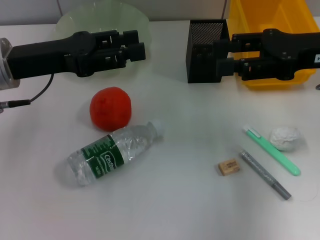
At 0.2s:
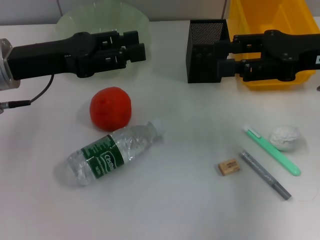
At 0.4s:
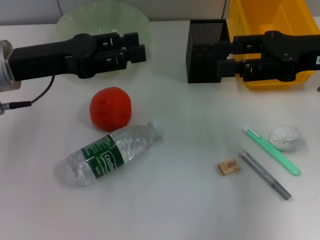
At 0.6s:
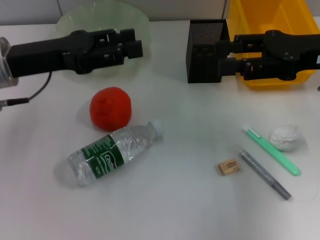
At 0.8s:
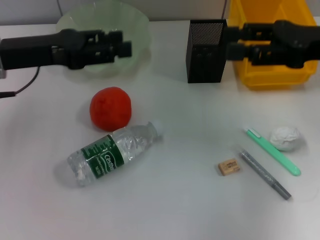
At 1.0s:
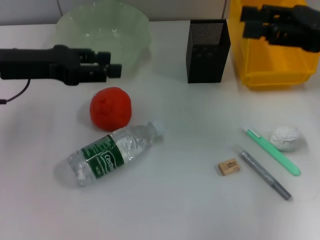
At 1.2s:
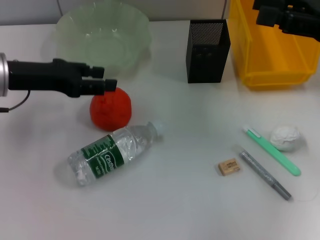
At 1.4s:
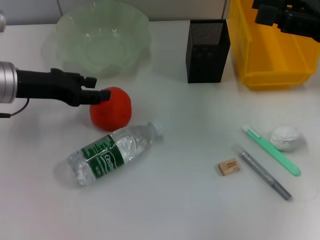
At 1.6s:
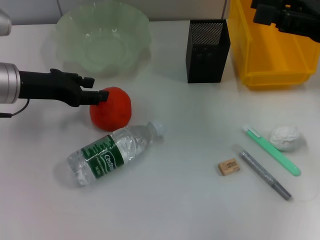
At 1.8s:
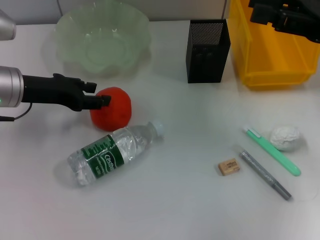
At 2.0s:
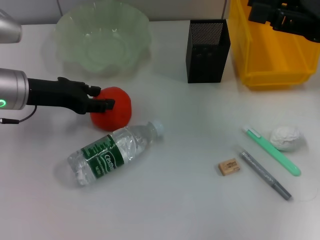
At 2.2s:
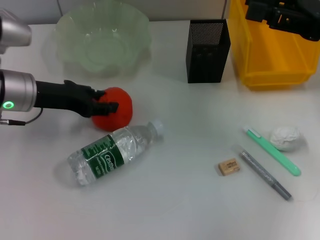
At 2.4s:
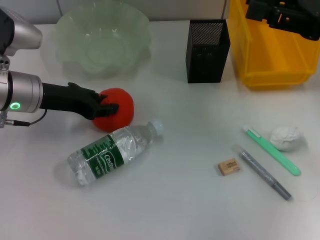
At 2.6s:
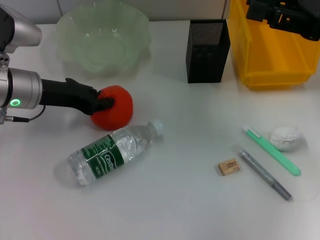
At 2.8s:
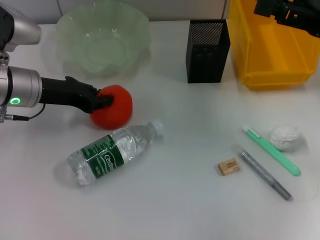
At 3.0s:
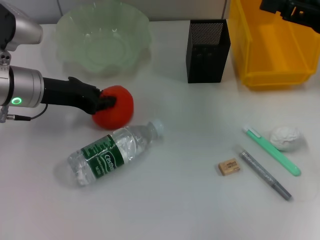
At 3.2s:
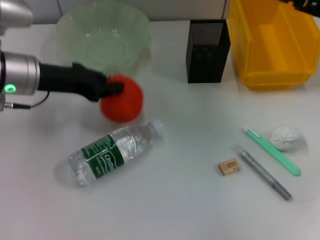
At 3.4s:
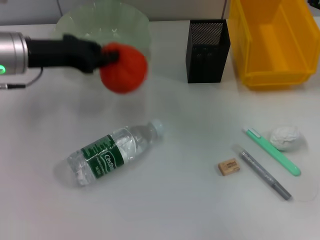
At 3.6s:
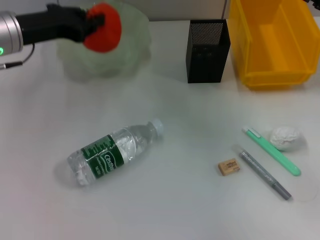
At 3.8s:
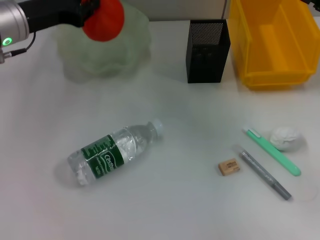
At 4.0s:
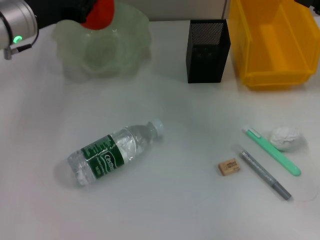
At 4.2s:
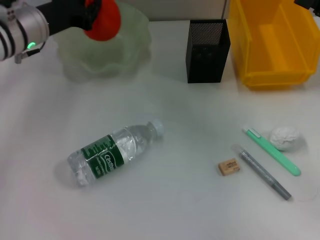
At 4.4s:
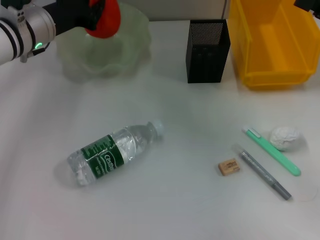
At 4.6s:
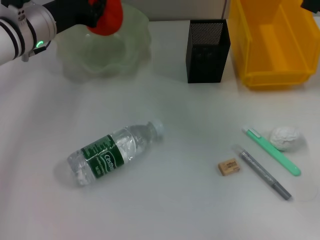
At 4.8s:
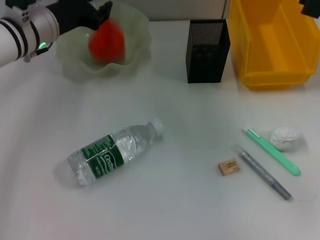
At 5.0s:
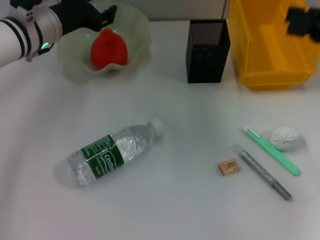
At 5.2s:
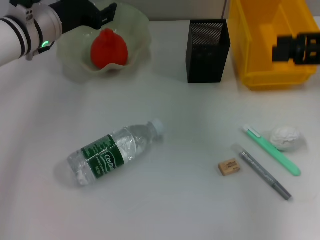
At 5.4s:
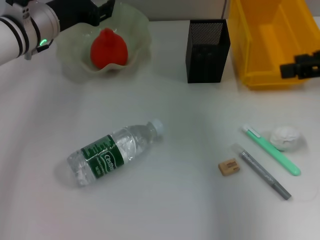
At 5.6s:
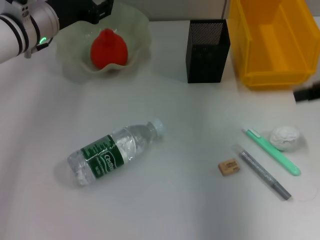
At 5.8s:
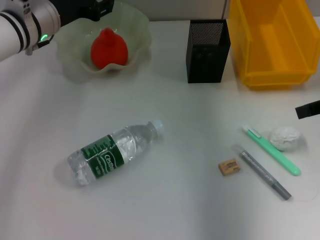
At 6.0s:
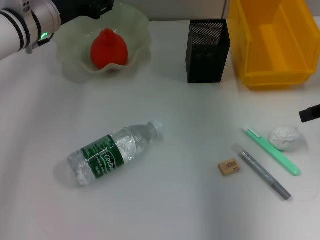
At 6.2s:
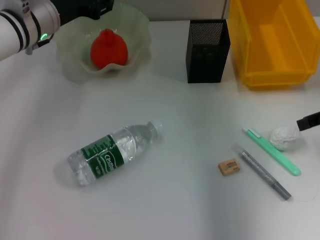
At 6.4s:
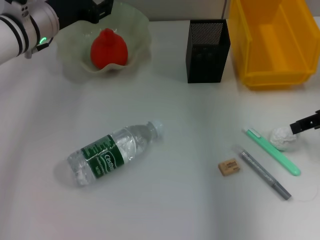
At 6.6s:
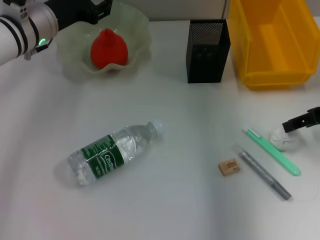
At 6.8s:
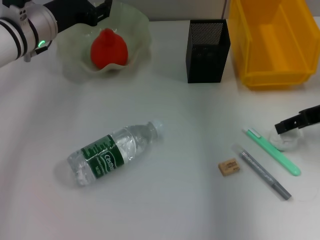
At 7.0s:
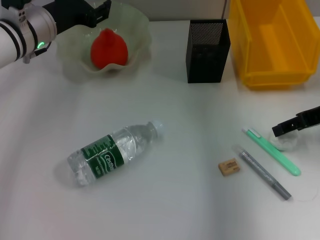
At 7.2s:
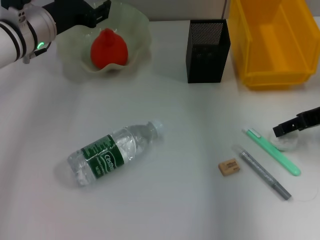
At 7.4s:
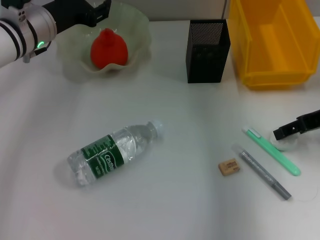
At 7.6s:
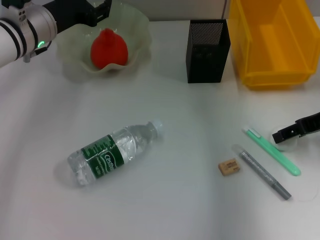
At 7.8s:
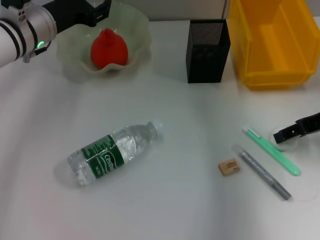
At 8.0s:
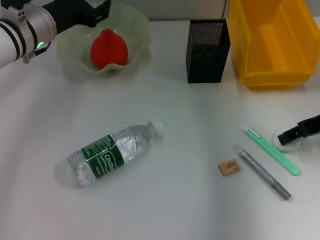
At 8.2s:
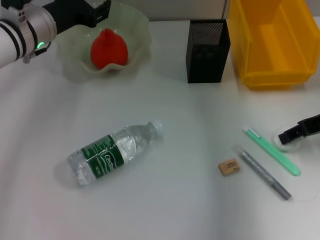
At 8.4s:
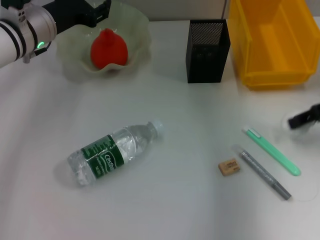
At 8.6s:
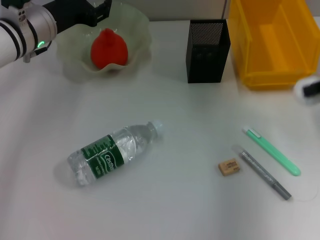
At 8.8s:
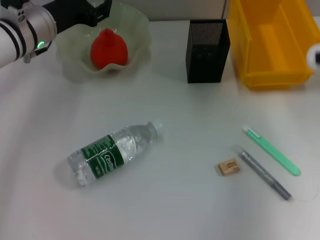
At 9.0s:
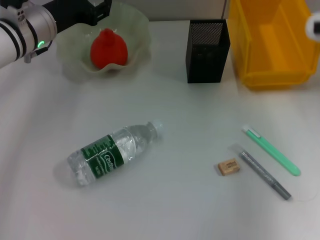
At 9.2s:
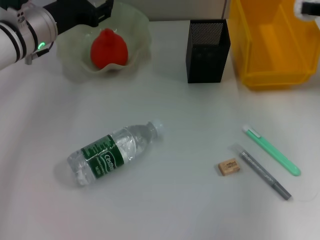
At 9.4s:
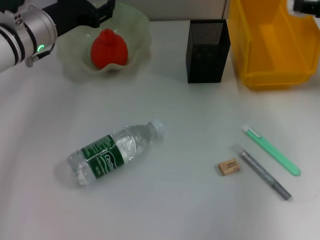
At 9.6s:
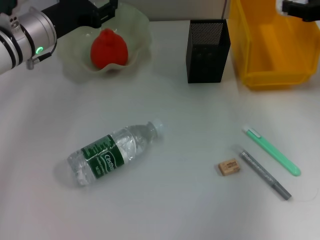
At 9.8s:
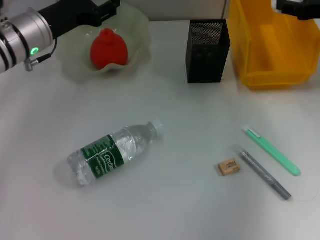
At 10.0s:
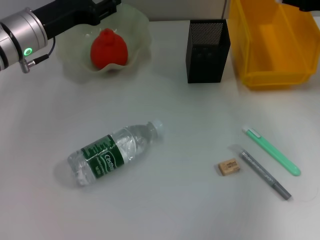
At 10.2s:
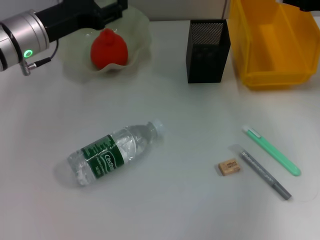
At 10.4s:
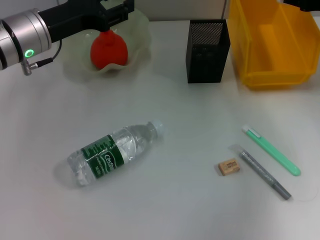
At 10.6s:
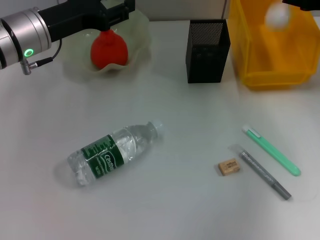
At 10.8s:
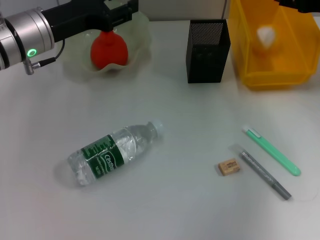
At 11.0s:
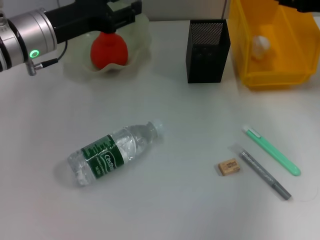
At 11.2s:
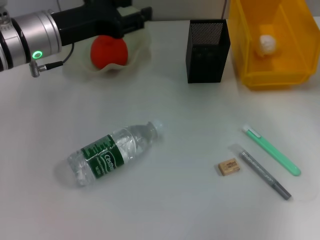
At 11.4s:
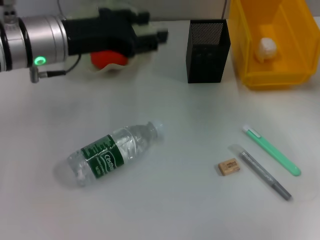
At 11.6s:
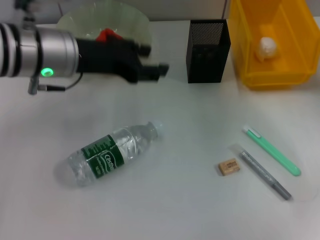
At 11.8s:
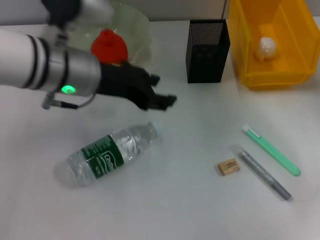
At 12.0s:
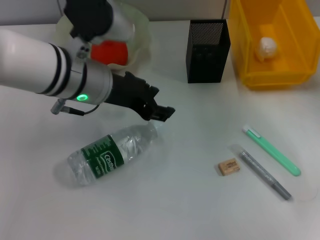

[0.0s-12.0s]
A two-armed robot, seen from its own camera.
Step, 0.0s to 2.6s: Grab the orange with the left hand.
Step, 2.8s to 5.0s: Place the orange into the fruit bowl with the left hand.
Step, 5.2s to 7.8s: Grab the paper ball with the right hand.
Step, 8.0s to 11.2s: Place the paper ball into the trash can with the right hand.
1.6s to 3.0s: The left gripper closes up.
3.0s to 4.4s: The left gripper heads forward, covering some 5 cm.
4.4s to 6.0s: The left gripper opens its fingers.
6.0s to 7.6s: The right gripper moves downward, about 5 cm.
7.6s to 9.0s: The right gripper heads upward and to the right, covering approximately 10 cm.
9.0s to 10.4s: The left gripper shifts by approximately 5 cm. Meanwhile the right gripper changes place by roughly 5 cm.
10.4s to 12.0s: The right gripper ends up about 5 cm from where it was. The left gripper goes approximately 10 cm to the right.

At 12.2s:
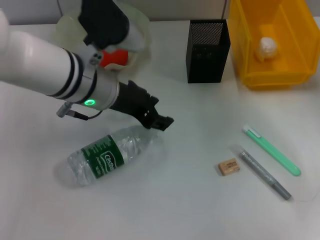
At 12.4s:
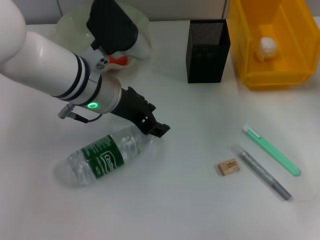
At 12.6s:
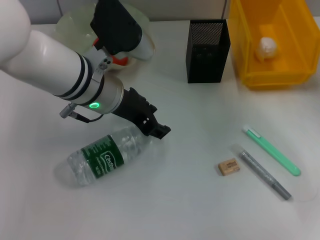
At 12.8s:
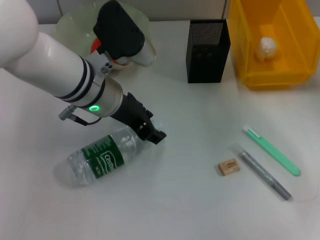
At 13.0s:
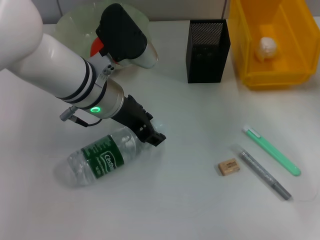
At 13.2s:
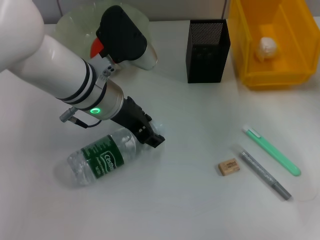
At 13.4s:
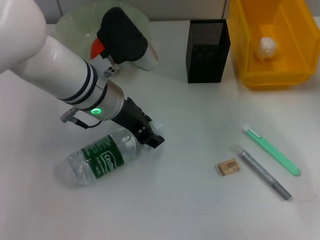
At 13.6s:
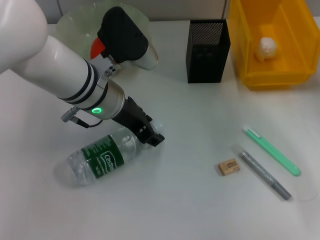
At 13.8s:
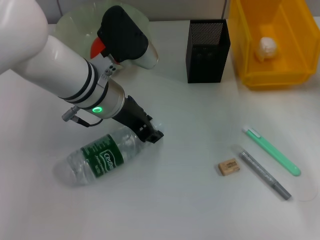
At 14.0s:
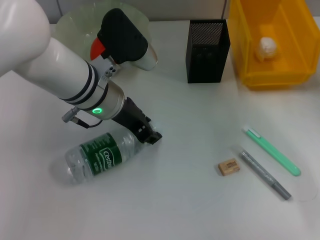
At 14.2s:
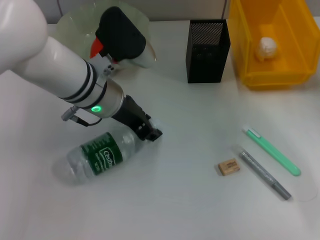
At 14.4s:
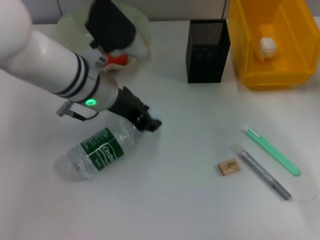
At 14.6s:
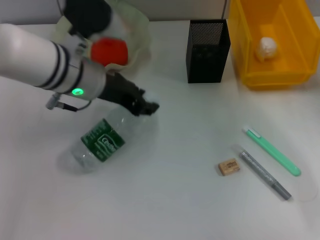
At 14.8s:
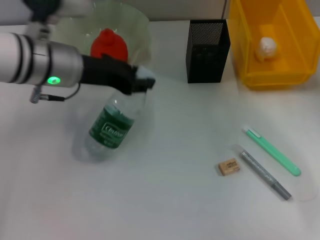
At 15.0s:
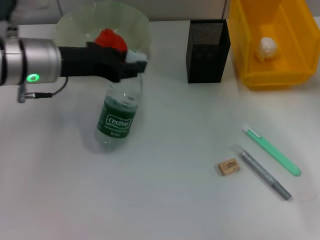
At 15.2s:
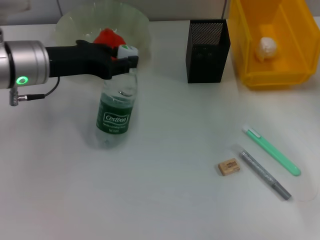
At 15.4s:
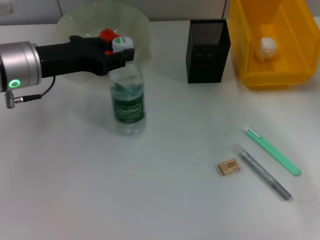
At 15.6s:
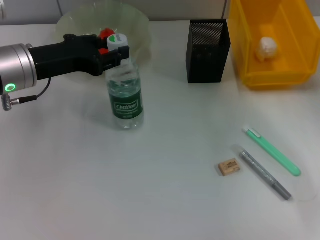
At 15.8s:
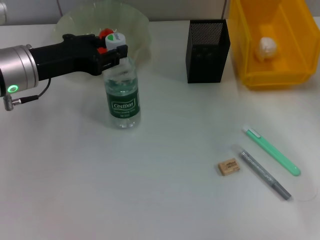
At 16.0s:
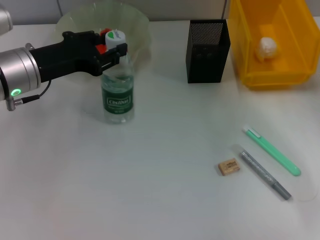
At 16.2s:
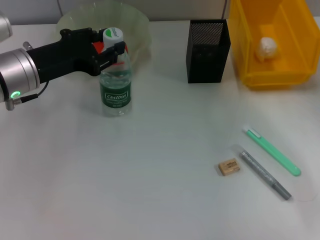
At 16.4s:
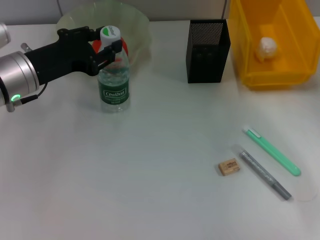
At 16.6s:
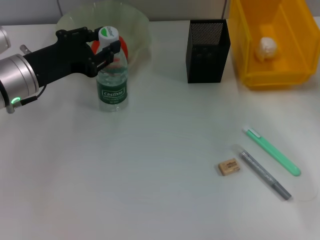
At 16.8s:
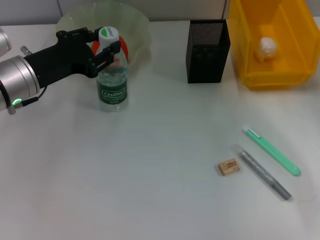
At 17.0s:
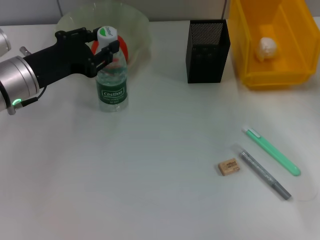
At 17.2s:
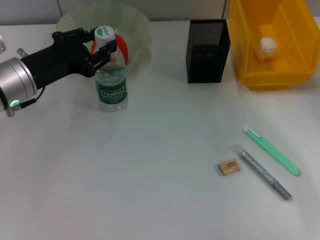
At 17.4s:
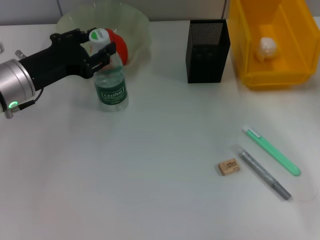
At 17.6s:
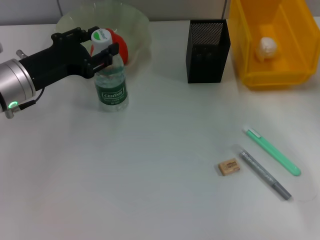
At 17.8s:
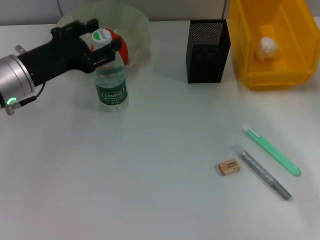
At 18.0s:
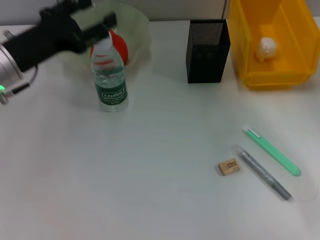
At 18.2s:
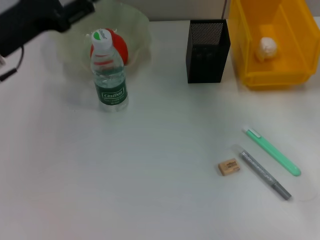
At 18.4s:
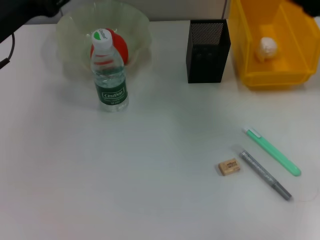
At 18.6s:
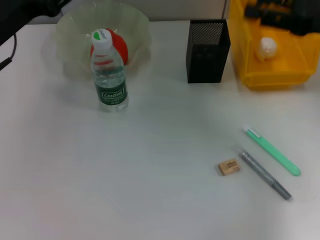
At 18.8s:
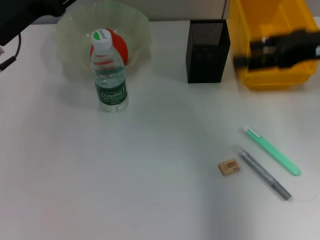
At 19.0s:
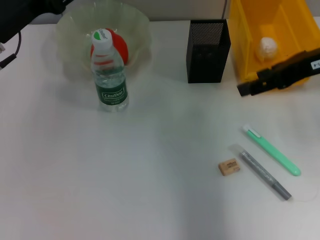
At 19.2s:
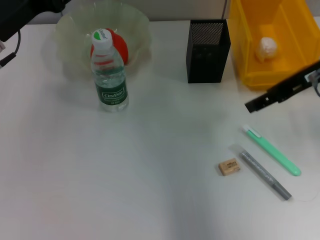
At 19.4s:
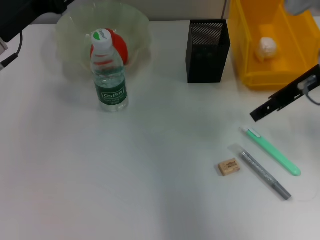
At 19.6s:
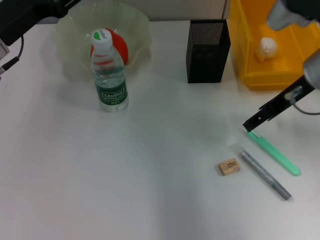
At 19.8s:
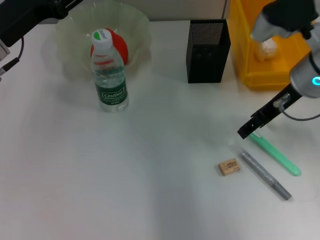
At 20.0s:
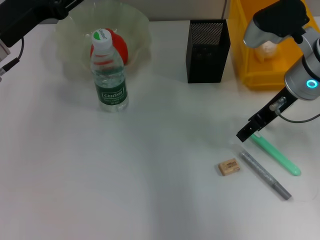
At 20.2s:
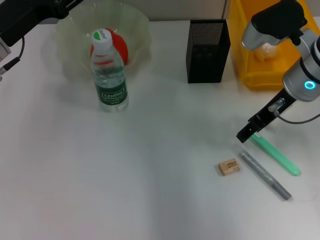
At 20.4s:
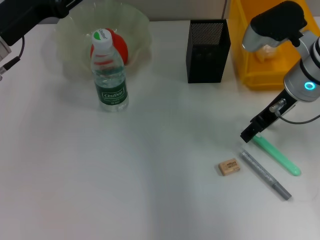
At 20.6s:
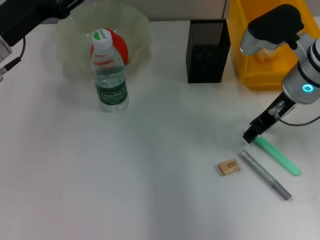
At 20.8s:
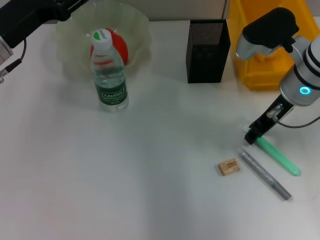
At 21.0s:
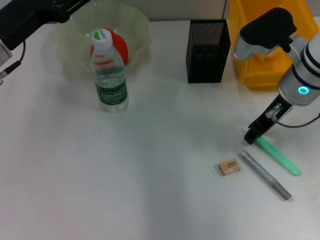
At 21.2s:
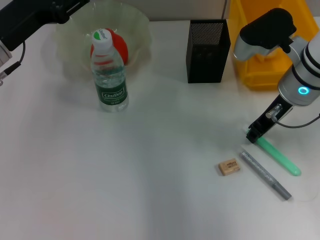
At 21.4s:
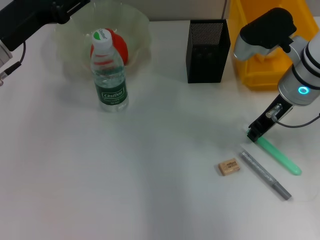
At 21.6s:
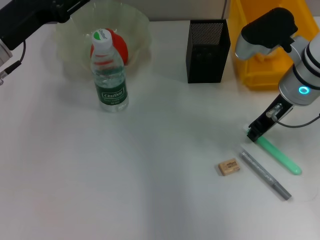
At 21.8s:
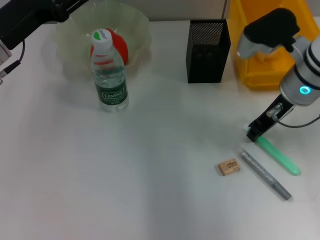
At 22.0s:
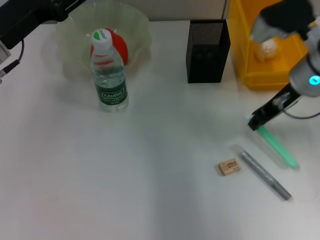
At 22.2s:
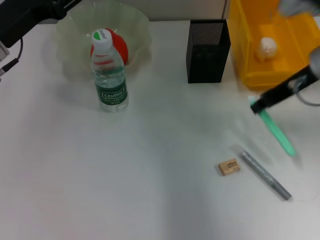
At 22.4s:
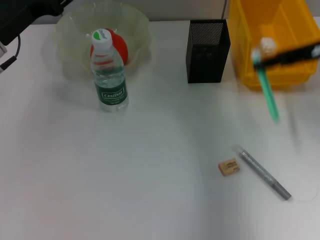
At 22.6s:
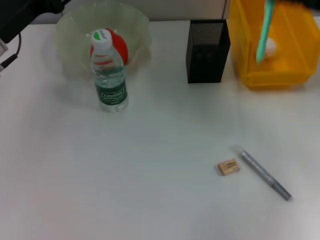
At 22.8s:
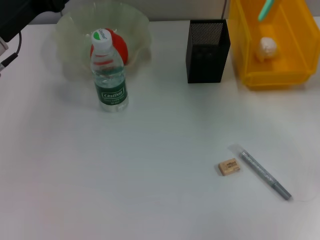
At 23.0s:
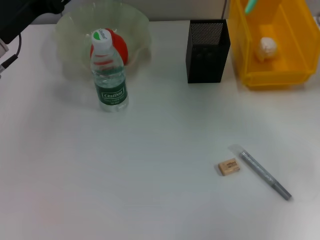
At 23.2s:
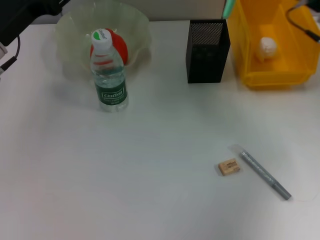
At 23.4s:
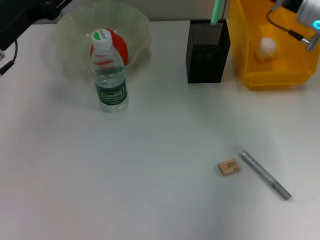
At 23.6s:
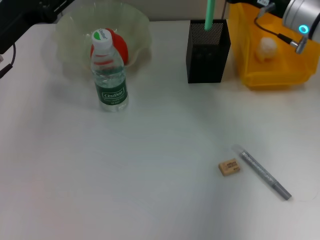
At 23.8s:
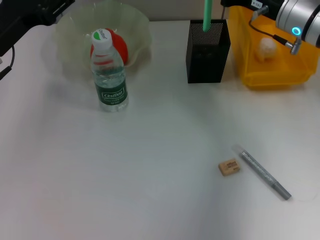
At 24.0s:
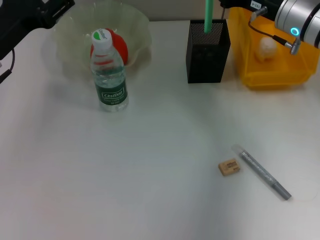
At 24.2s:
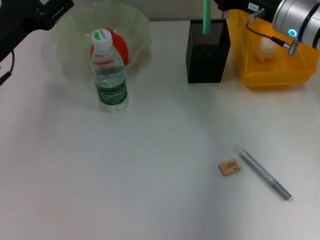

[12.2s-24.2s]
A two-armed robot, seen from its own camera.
Step, 12.2s to 14.2s: Grab the water bottle with the left hand.
Step, 14.4s to 17.8s: Place the water bottle on the table with the left hand.
Step, 18.0s to 21.2s: Grab the blue utility knife with the right hand.
12.2s to 13.8s: There are only small adjustments of the grippers.
13.8s to 15.2s: The left gripper is displaced to the left by some 10 cm.
16.6s to 18.2s: The left gripper opens its fingers.
18.2s to 19.8s: The right gripper heads to the left, covering some 10 cm.
19.8s to 21.2s: The right gripper closes its fingers.
21.2s to 22.6s: The right gripper goes about 15 cm to the right and upward, and closes.
22.6s to 24.2s: The right gripper goes some 15 cm to the left, forward and downward.
